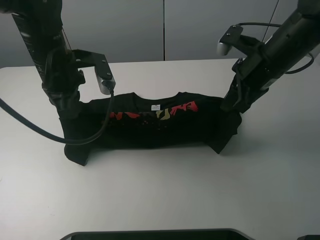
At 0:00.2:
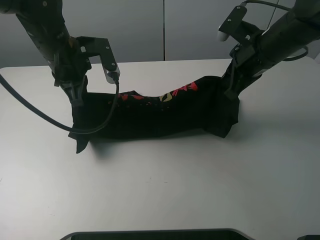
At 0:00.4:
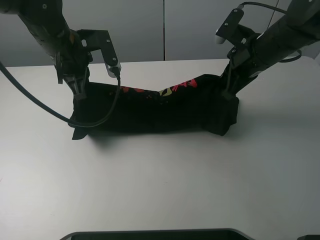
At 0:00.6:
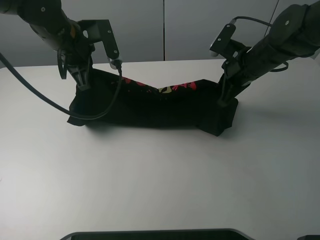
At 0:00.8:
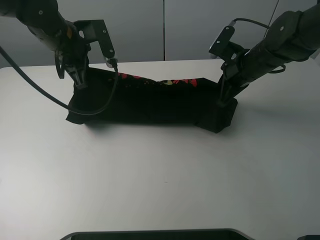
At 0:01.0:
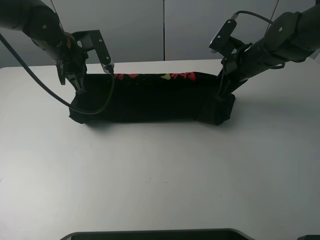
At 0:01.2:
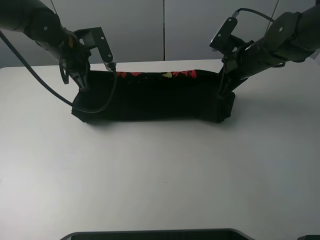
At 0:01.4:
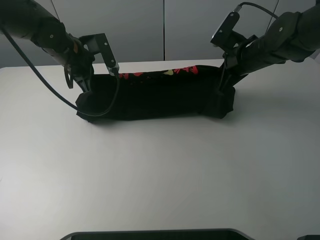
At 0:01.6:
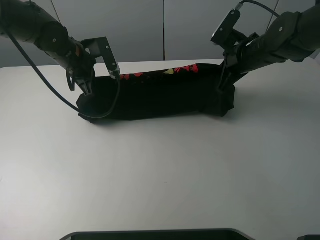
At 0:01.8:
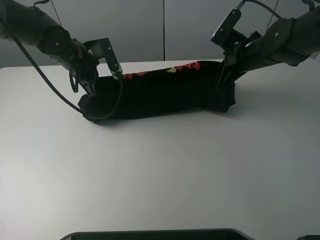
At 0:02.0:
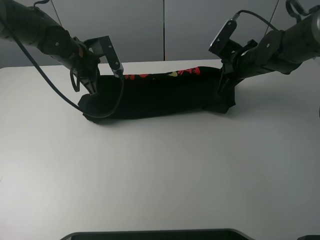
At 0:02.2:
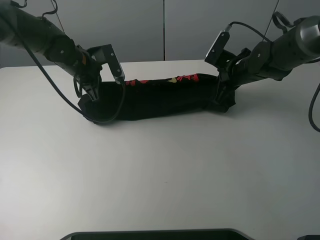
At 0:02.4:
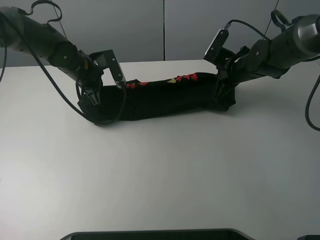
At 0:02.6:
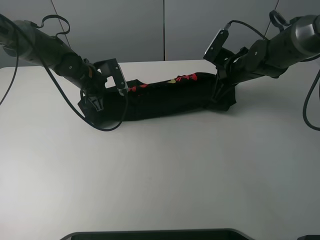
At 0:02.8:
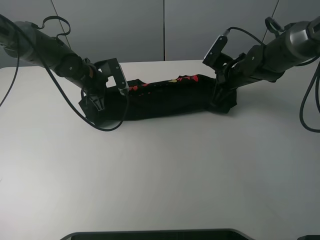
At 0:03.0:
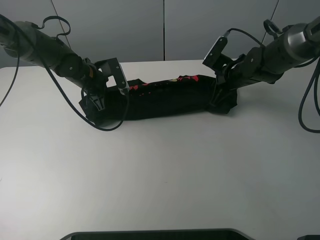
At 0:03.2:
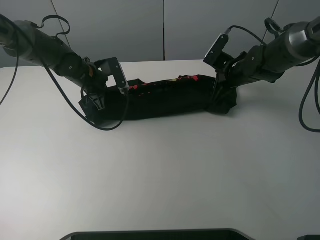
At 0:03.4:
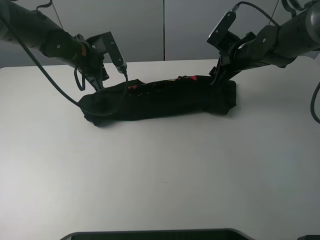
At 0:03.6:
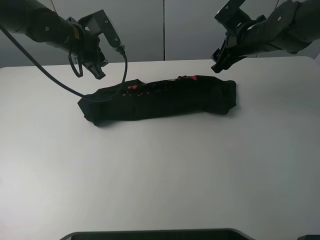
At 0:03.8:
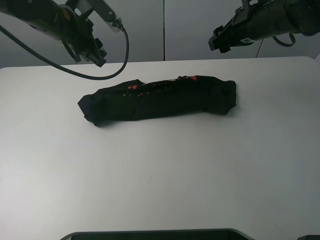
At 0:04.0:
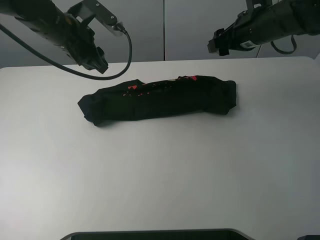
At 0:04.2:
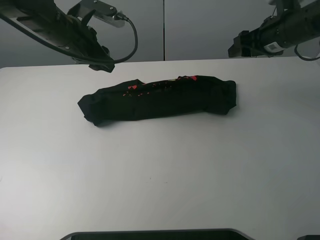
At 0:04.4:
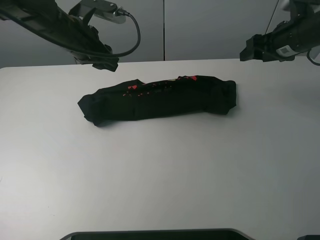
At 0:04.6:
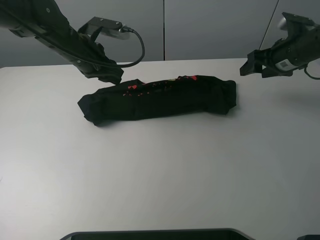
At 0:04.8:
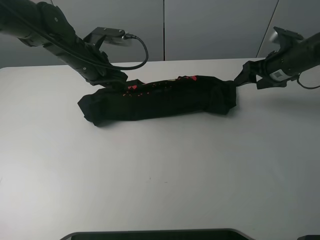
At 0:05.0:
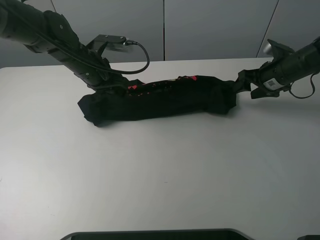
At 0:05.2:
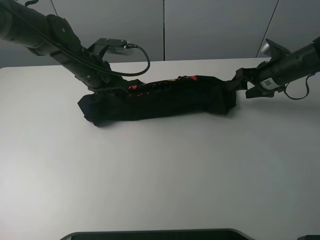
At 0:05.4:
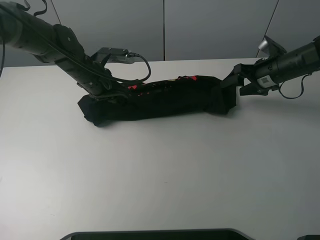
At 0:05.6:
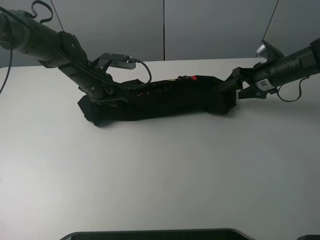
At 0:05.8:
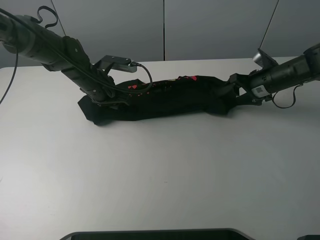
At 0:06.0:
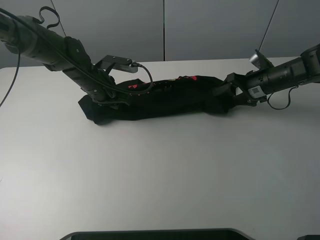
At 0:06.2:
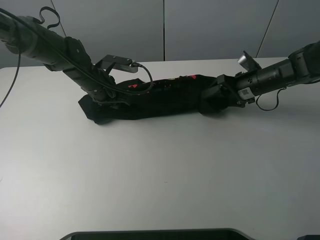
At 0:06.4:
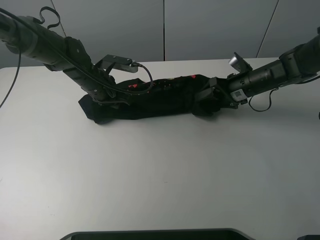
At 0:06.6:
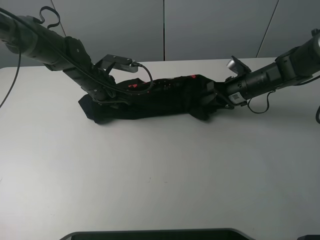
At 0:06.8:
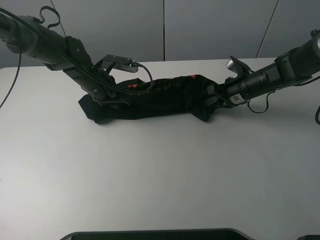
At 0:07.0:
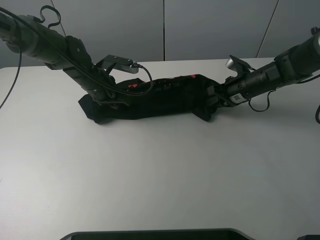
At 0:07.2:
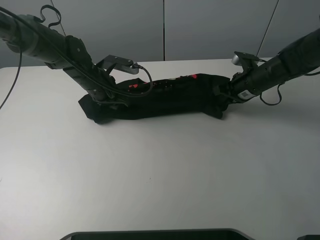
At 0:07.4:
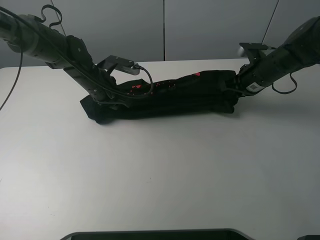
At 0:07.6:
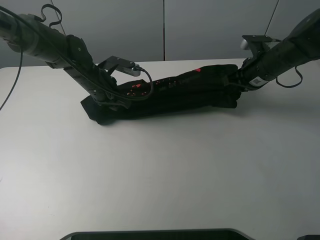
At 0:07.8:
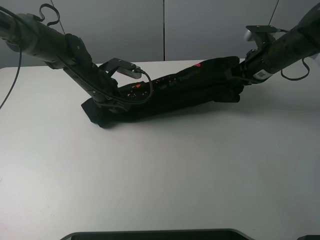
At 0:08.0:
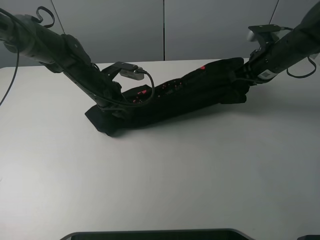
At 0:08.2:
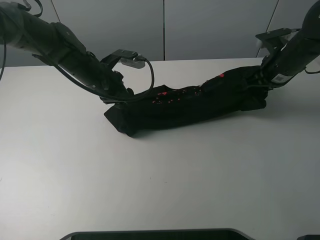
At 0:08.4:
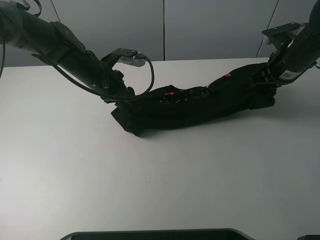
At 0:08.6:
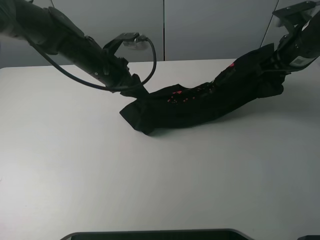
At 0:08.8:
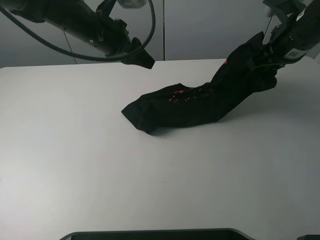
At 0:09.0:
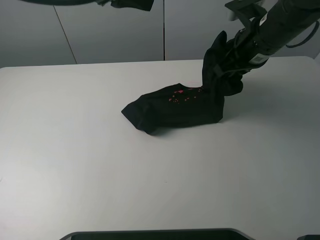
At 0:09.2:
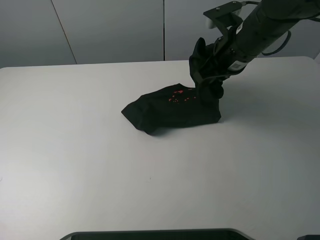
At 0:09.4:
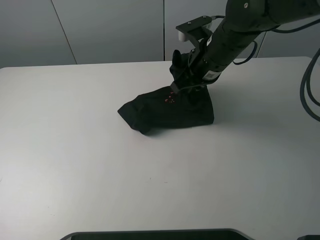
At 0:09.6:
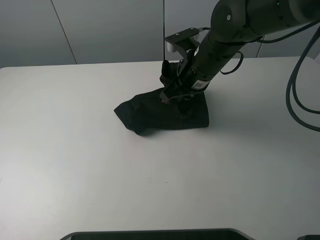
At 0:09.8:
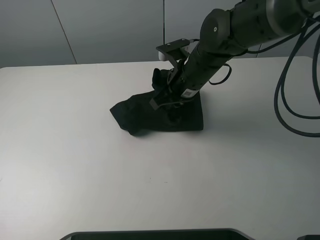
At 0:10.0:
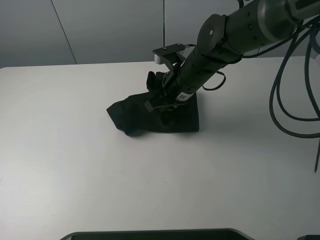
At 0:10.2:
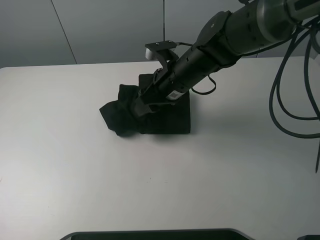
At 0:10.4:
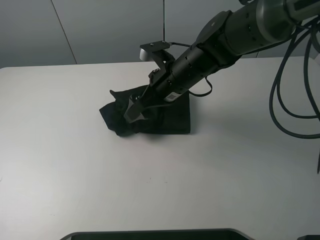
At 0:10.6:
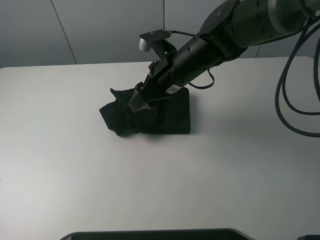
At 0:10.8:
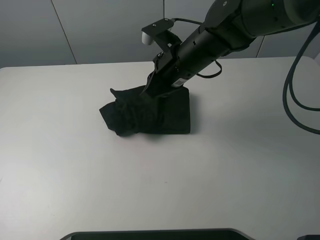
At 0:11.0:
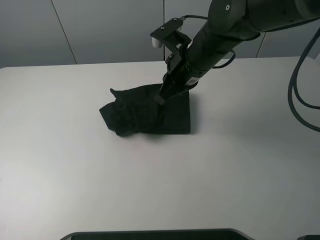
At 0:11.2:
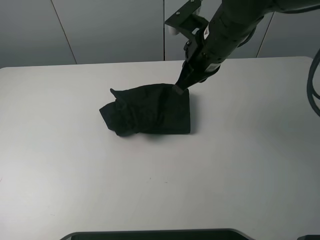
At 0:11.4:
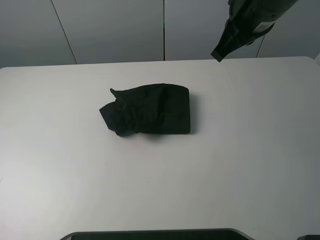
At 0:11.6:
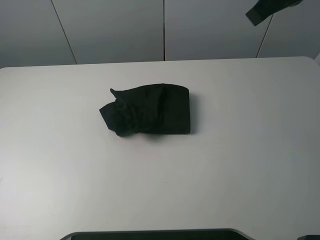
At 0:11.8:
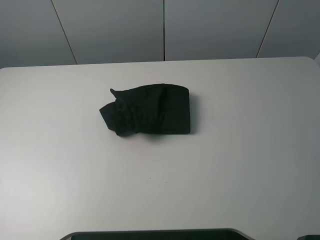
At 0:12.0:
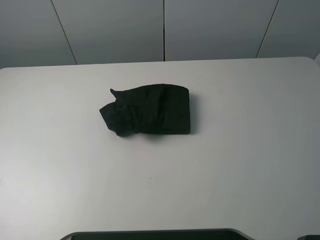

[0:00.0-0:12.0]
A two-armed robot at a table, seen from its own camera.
Task of the whole recording: fold the clothes on the table.
Step, 0:00.0 to 0:03.2: Fold the black T-shirt downward with the left gripper.
Step, 0:03.6 to 0:06.4: Grasp the black T-shirt with the right gripper.
Step, 0:06.6 to 0:10.4: Fold the black T-shirt from right to left with right gripper.
0:00.0 to 0:01.6: The right gripper shifts roughly 5 cm forward, while the left gripper heads forward and downward, covering approximately 10 cm.
0:01.6 to 0:03.0: Both grippers travel together downward, roughly 5 cm. The right gripper opens its fingers.
0:03.0 to 0:04.4: The left gripper shifts about 10 cm upward, and opens. The right gripper travels upward and to the right by roughly 15 cm.
0:04.4 to 0:06.0: Both grippers move downward, roughly 10 cm.
0:06.0 to 0:07.6: The right gripper heads upward, covering approximately 5 cm, and closes.
0:07.6 to 0:09.0: The right gripper travels upward, to the left and backward by about 10 cm, while the left gripper heads upward, covering about 25 cm.
0:09.0 to 0:10.4: The right gripper shifts about 15 cm to the left and downward, and opens, while the left gripper is displaced upward by roughly 10 cm.
0:10.4 to 0:12.0: The right gripper is displaced upward, to the right and backward by about 50 cm, and closes, then opens again. Meanwhile the left gripper travels backward, to the left and upward by roughly 30 cm.

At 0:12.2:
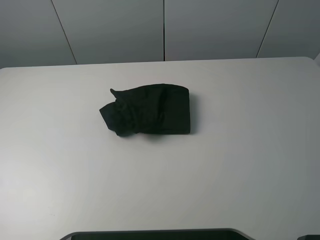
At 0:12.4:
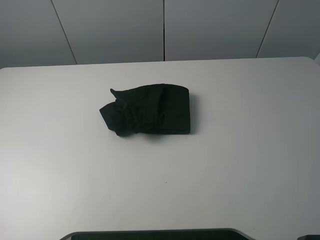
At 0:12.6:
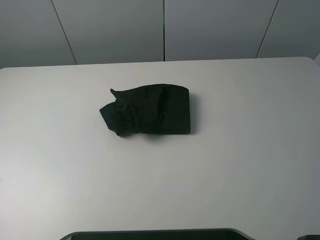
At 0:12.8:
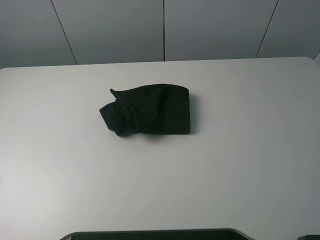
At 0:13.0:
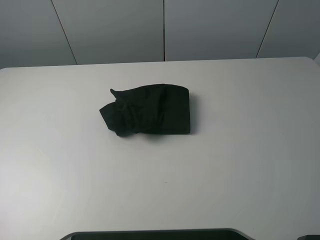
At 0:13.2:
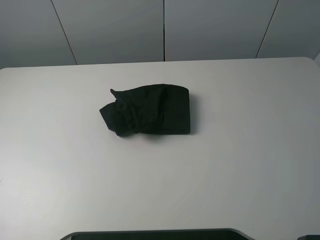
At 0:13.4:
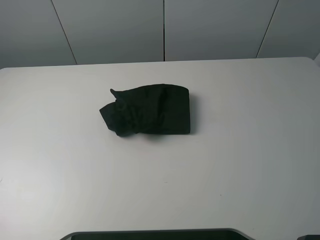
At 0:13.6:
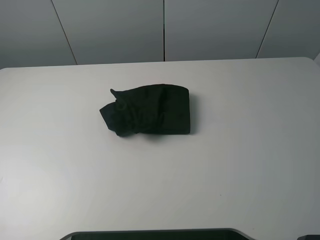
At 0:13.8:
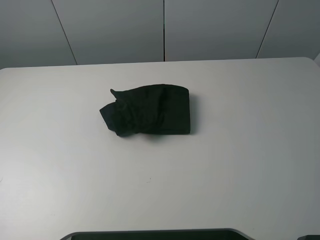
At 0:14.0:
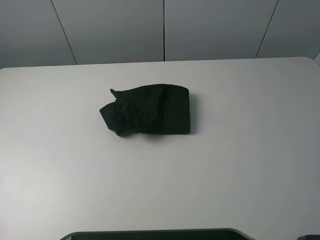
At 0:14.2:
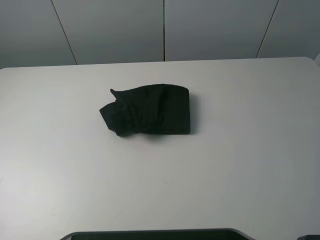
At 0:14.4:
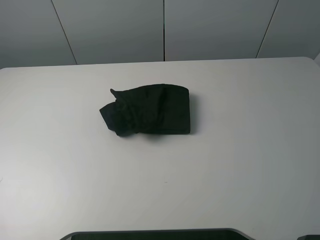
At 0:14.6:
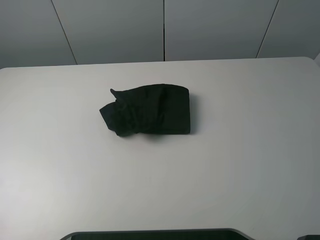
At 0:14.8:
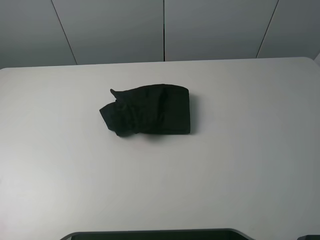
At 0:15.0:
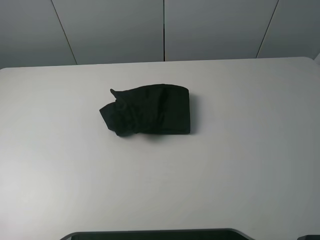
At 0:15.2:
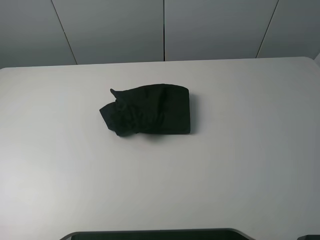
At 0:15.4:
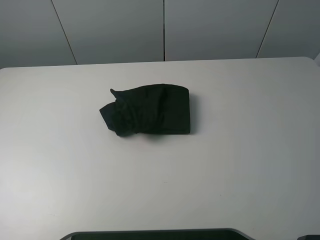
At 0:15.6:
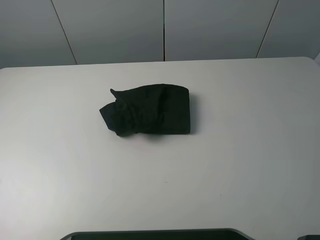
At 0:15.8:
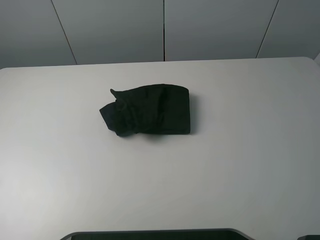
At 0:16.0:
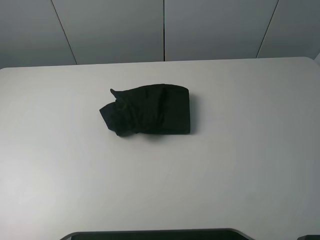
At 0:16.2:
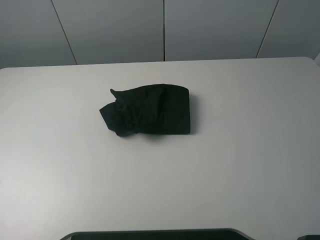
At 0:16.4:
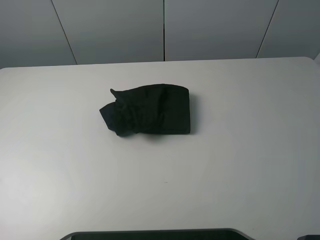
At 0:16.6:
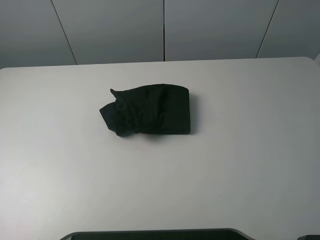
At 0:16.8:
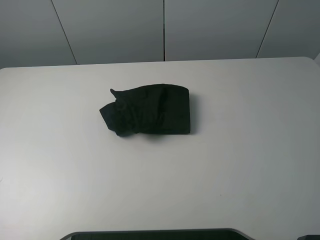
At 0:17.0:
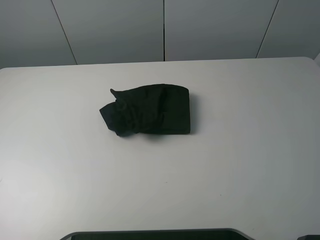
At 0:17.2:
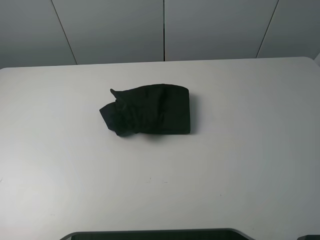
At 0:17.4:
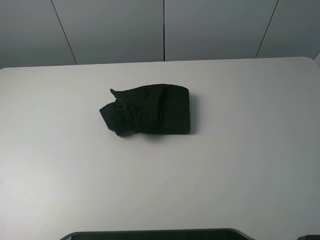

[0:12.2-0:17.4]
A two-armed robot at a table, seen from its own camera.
Task of the whole recording: fold the clothes on the table.
0:15.6 to 0:17.4: Both grippers stay put.
